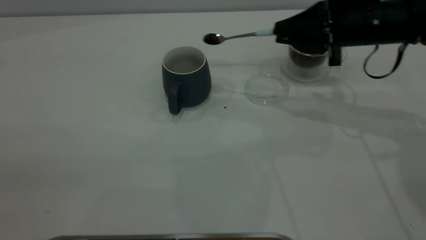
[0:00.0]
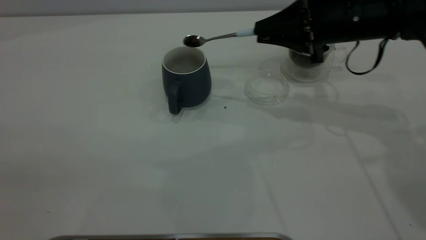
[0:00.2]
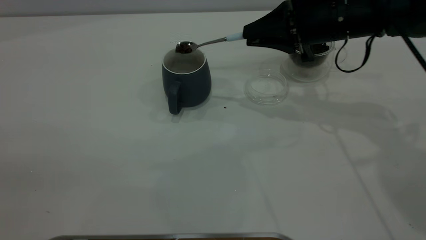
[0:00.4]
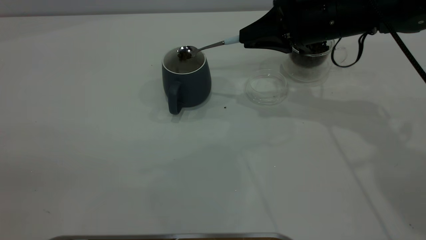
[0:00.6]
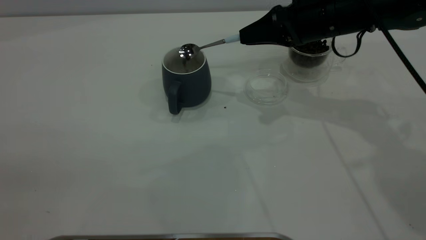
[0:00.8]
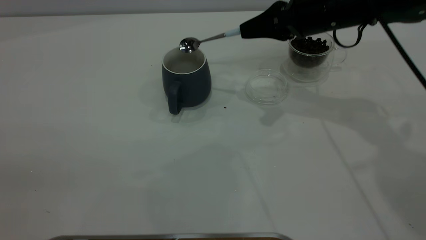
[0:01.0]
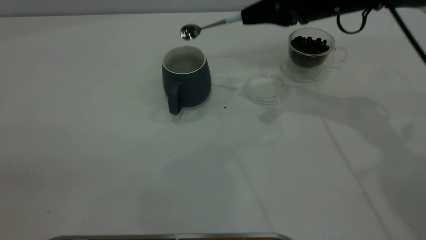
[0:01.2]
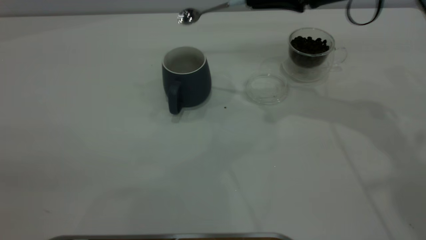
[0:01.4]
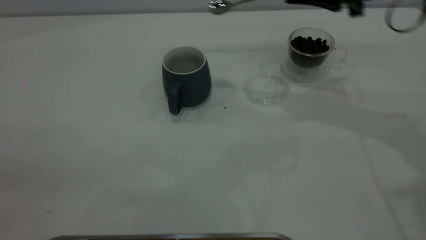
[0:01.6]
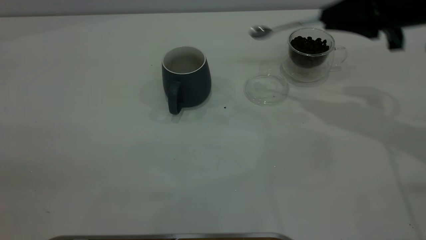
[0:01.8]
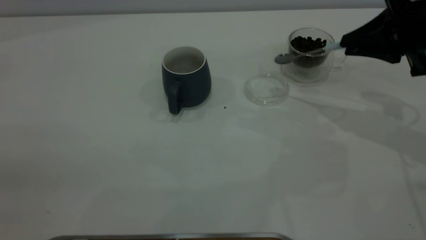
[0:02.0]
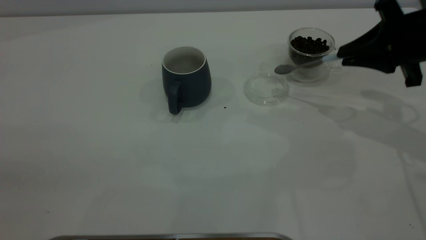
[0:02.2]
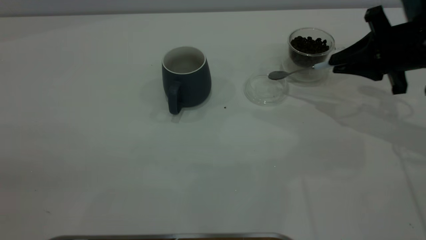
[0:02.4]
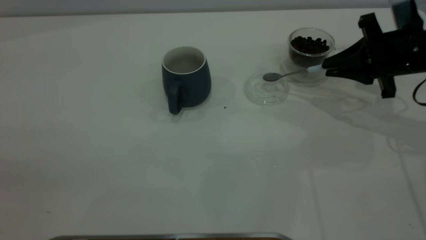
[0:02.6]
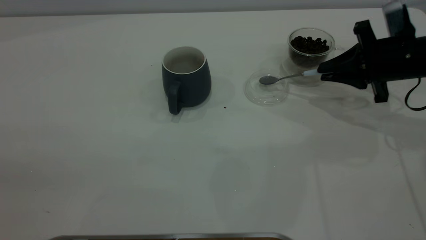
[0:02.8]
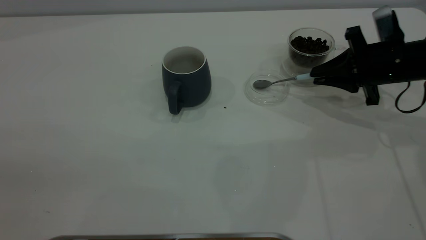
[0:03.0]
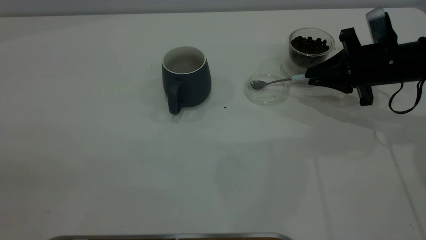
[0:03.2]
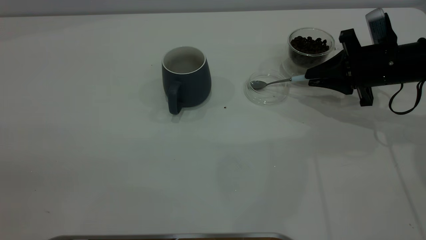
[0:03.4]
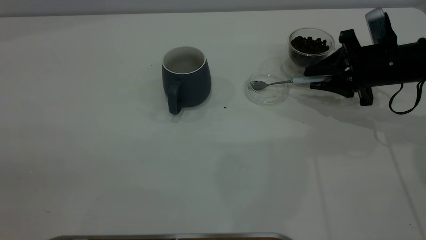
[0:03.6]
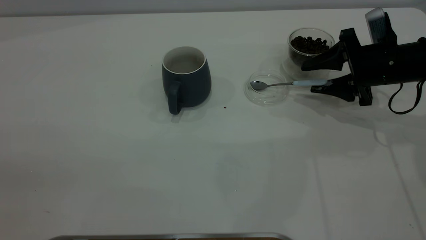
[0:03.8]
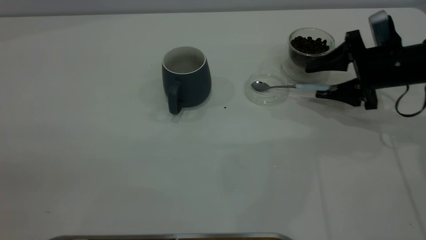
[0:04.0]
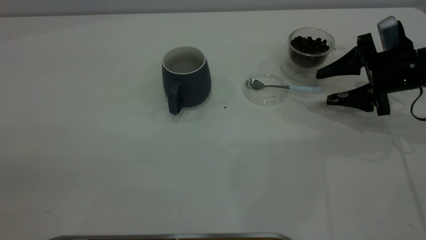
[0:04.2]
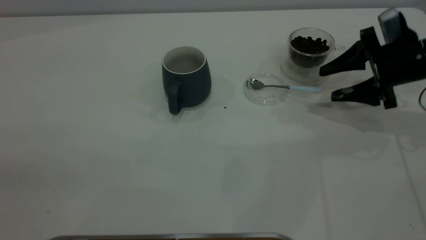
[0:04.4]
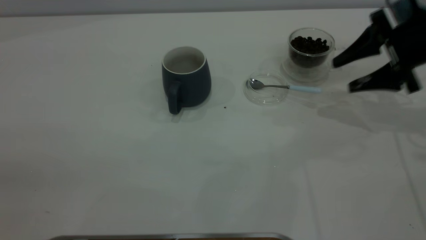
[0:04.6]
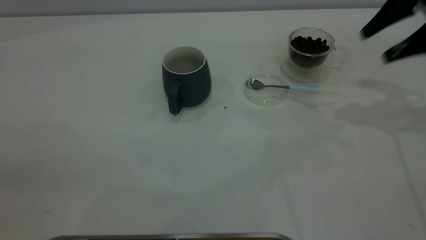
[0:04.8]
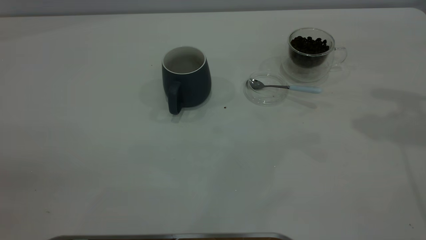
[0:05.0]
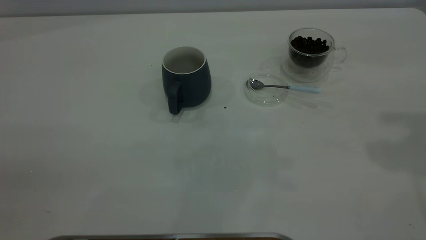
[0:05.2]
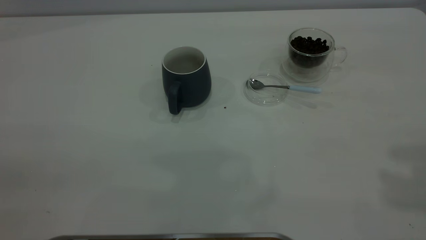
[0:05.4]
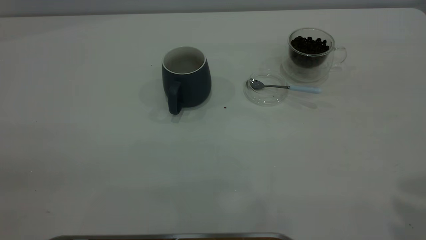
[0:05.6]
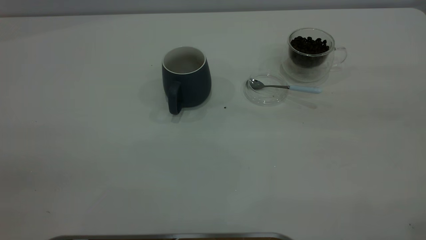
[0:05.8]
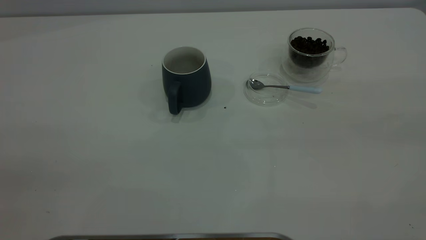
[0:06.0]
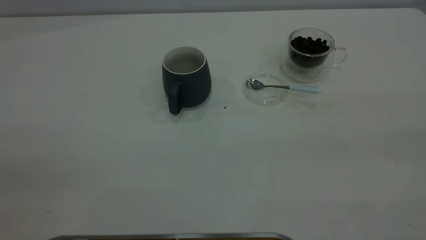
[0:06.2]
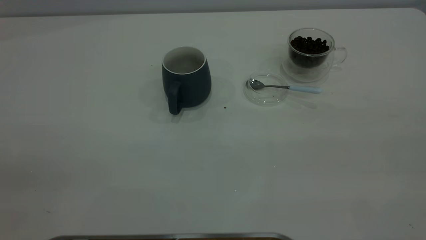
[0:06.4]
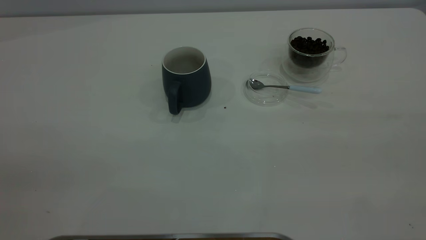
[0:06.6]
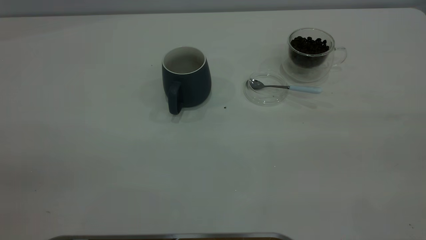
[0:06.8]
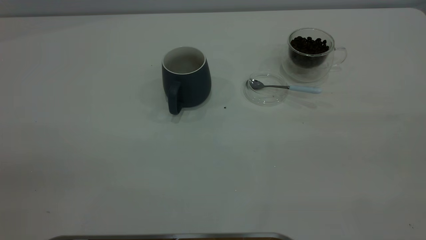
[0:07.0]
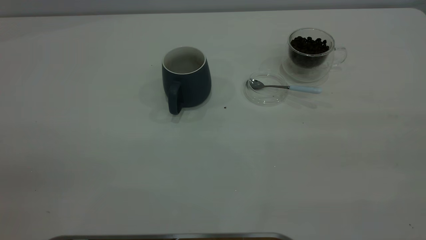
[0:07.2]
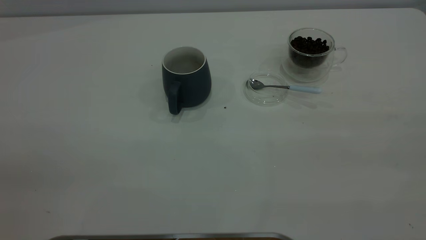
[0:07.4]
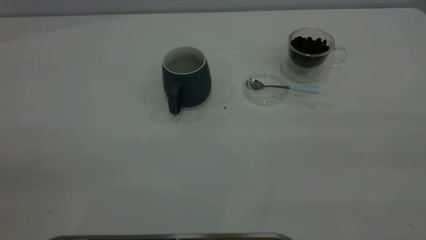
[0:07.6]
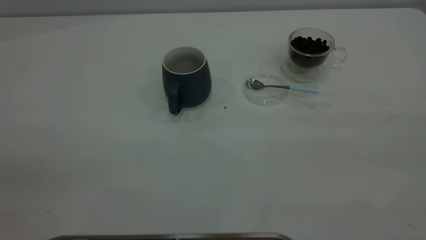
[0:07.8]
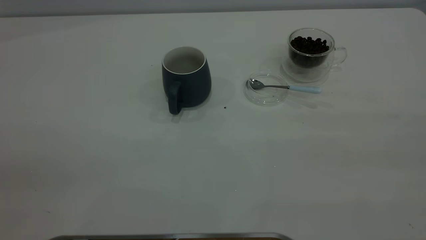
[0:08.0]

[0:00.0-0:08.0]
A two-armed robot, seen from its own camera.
Task of the whole recording: the left gripper place the grey cup in the center of the table, the right gripper take the blue spoon from the cup lid and scoop out the coffee beans from the coffee cup and put them into the grey cup, the right gripper put the spoon back into the cup lid.
Step, 0:01.2 to 0:04.6: Place the spoon back in its original place.
0:00.0 to 0:01.6: The right gripper shifts some 5 cm upward.
0:01.6 to 0:03.2: The right gripper travels downward by approximately 15 cm.
0:03.2 to 0:04.8: The right gripper moves upward, approximately 15 cm, and opens up.
0:04.8 to 0:06.4: The right gripper heads backward, covering about 35 cm.

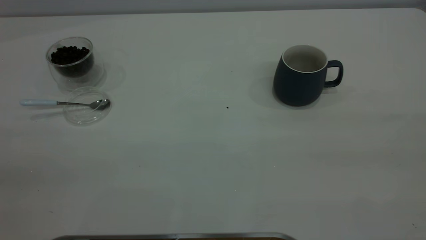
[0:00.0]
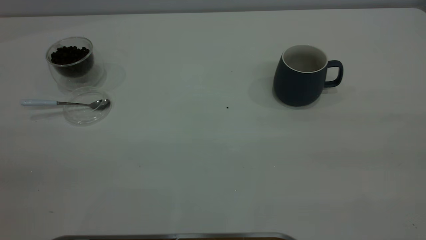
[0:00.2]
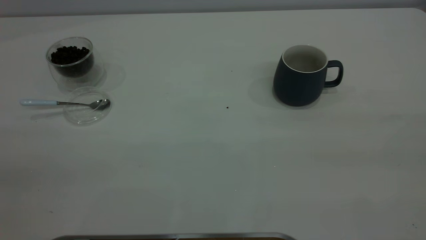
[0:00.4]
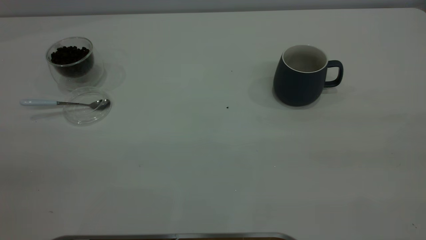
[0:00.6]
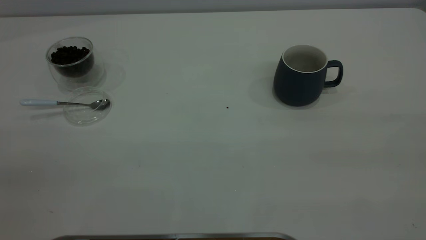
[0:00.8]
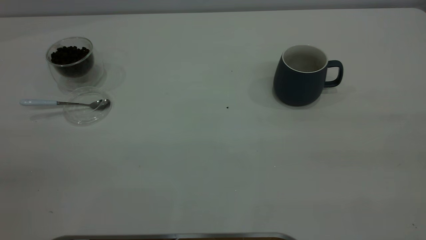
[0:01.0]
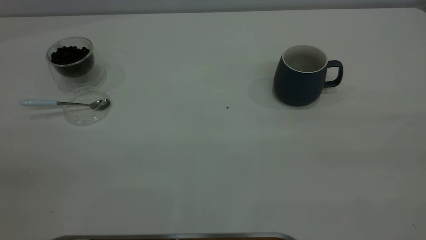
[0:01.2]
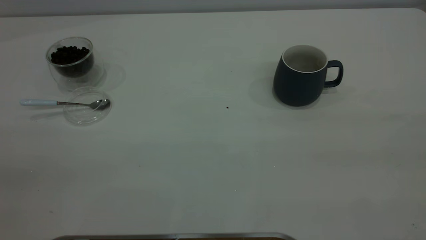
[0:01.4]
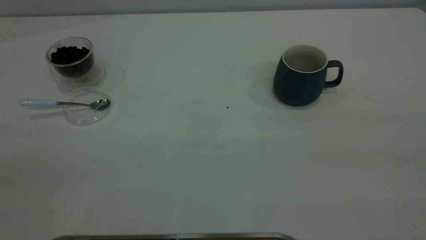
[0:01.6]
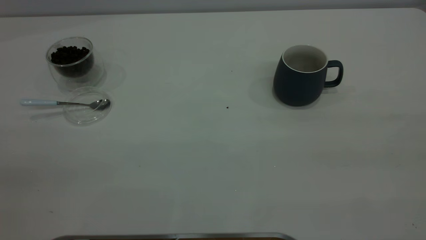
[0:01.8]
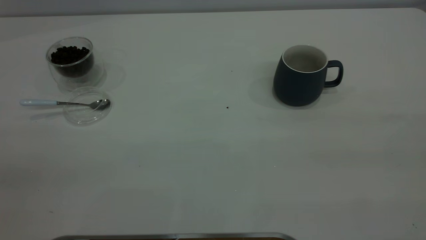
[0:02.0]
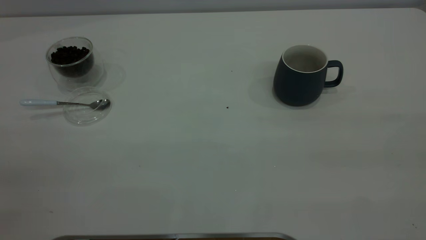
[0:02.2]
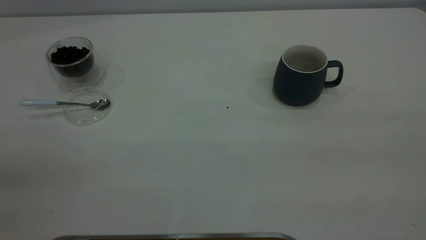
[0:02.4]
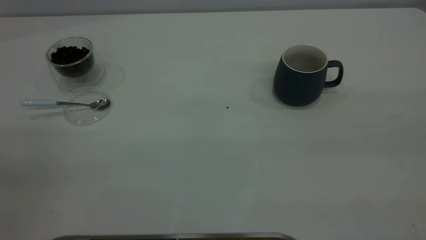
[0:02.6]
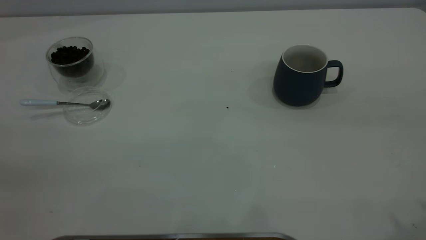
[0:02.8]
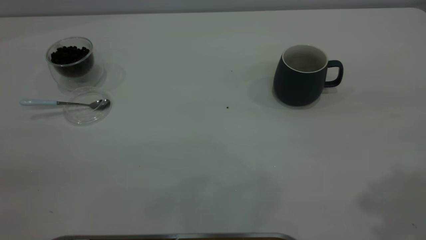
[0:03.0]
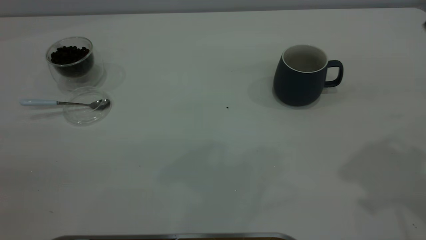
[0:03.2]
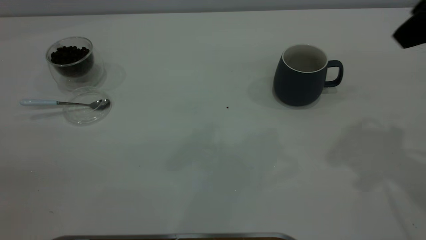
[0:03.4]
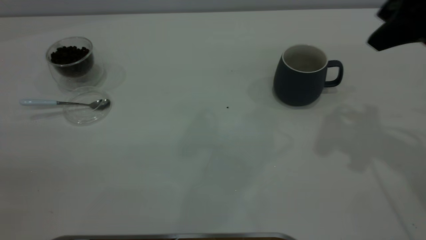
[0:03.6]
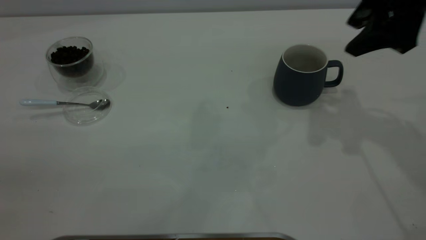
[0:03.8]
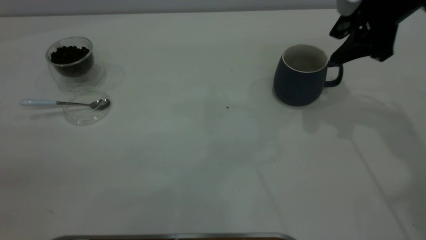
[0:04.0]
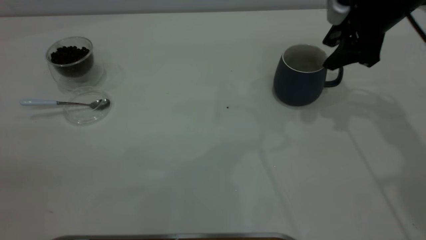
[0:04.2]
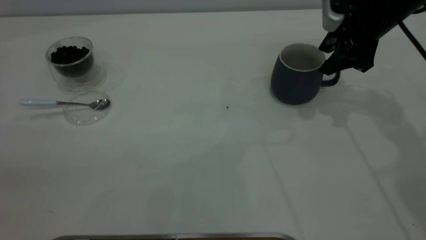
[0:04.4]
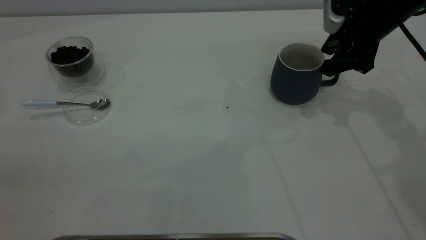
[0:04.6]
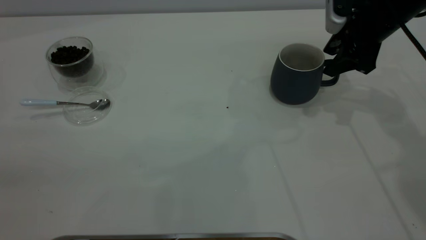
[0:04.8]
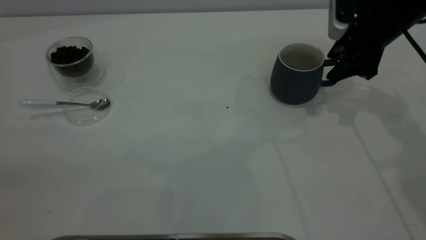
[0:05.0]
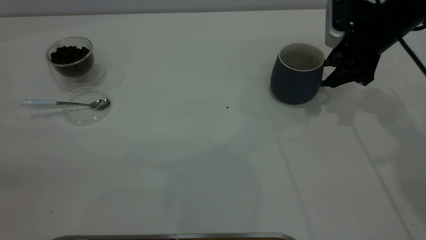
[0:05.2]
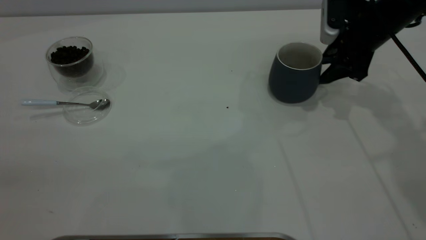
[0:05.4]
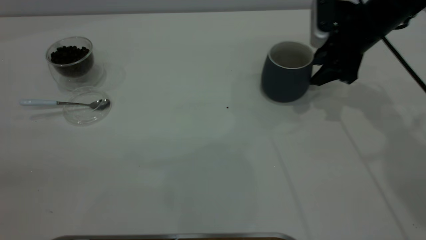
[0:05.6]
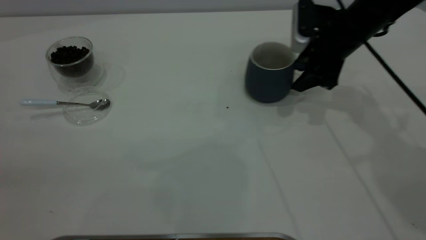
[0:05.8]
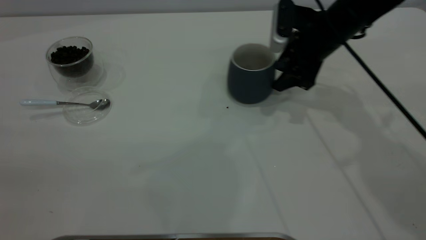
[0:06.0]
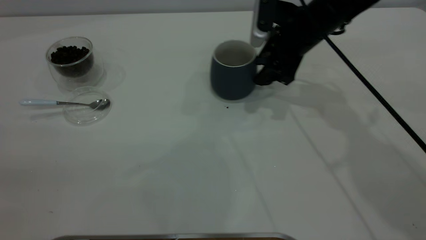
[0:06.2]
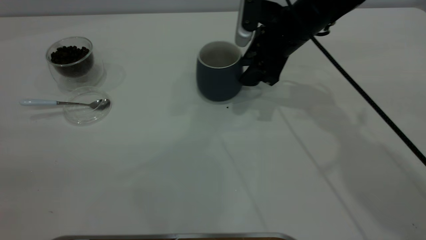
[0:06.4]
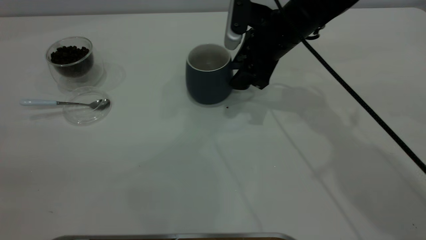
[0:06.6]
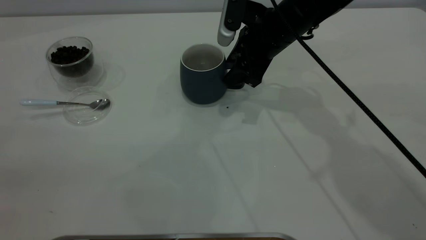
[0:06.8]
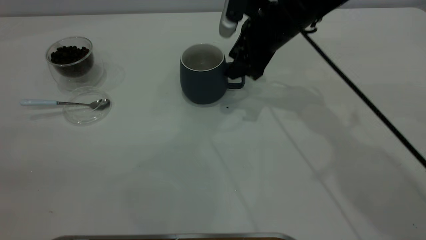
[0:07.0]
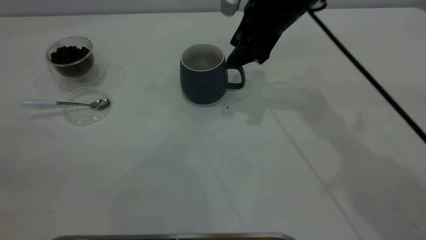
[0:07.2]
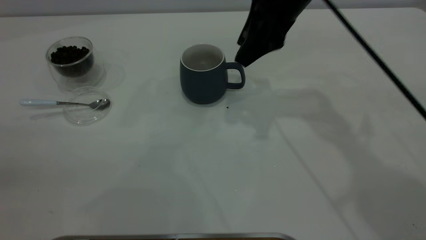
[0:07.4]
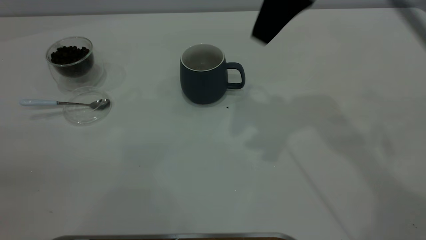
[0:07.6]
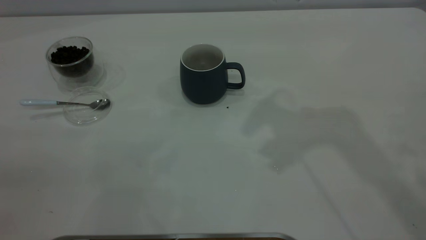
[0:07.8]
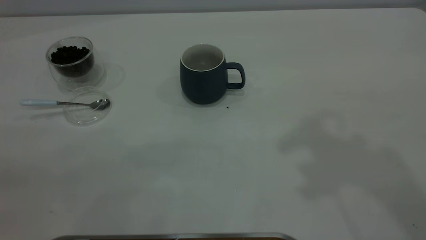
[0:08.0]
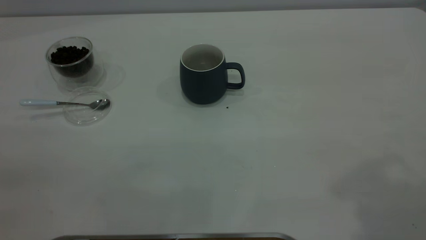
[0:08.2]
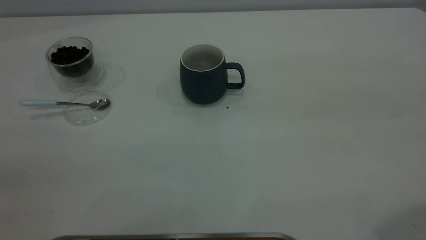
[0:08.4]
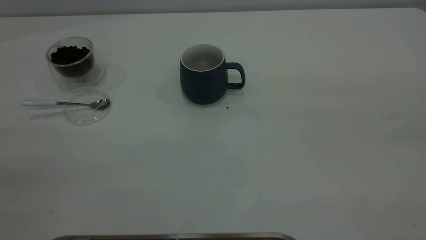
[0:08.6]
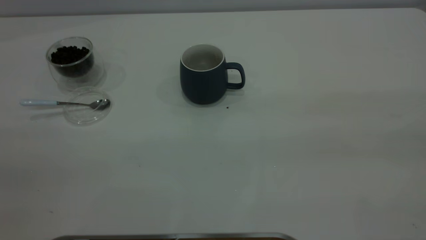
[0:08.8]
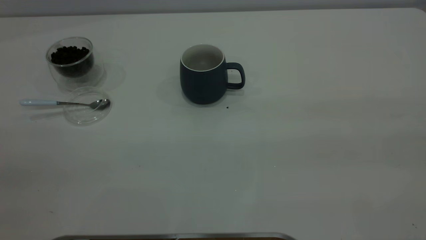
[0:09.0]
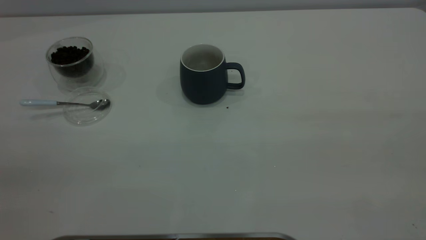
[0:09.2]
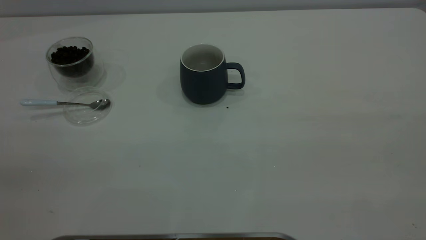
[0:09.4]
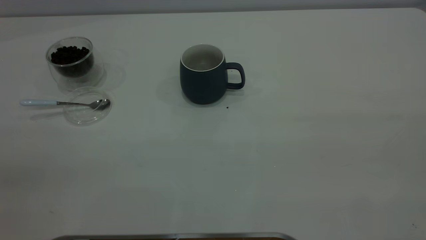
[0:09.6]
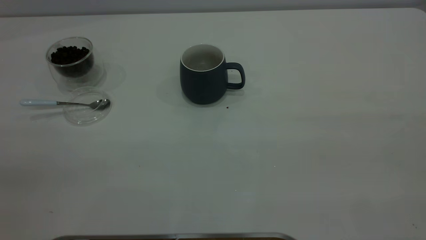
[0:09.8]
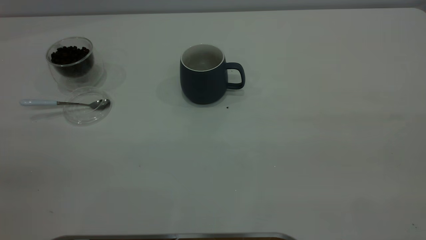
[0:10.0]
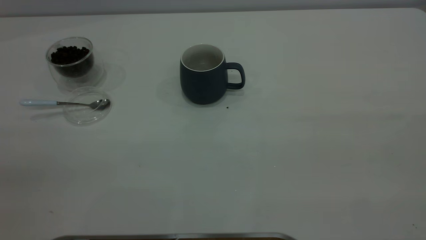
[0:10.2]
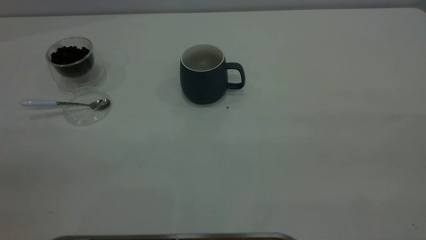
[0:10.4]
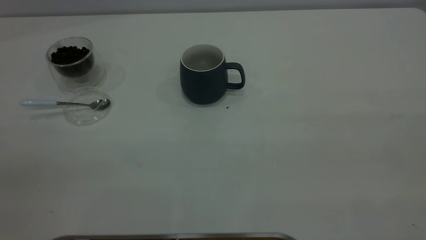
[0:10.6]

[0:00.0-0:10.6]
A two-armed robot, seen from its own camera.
Task of the whole recording: the right gripper place the grey cup in the center of the table, the left gripper take the blue spoon from the cup lid and scoop out the coffee beans from the coffee cup and put them into the grey cup, the left gripper put the spoon back into the cup lid.
Step, 0:00.0 to 0:07.4: Move the cup to the center of view.
0:00.0 to 0:01.6: The two grippers keep their place.
0:03.0 to 0:04.6: The right gripper goes roughly 30 cm forward and downward.
0:04.6 to 0:06.0: The right gripper moves to the left, roughly 10 cm.
0:06.0 to 0:07.6: The right gripper moves upward, about 20 cm.
0:07.6 to 0:09.0: The right gripper goes some 35 cm backward and to the right.
